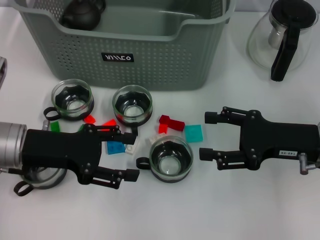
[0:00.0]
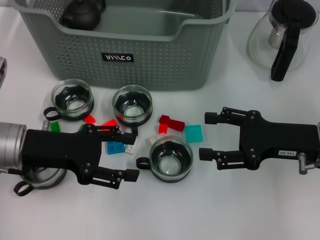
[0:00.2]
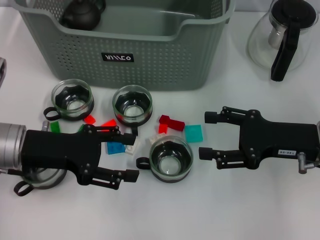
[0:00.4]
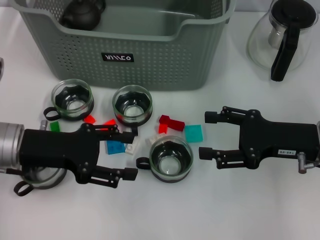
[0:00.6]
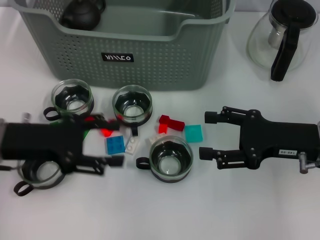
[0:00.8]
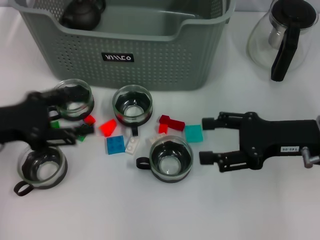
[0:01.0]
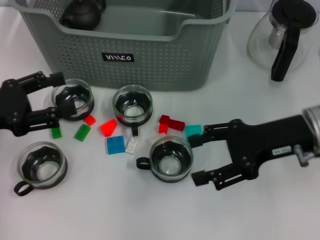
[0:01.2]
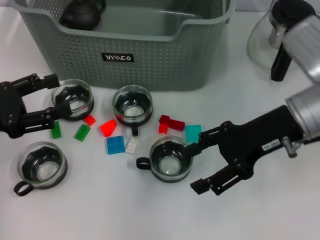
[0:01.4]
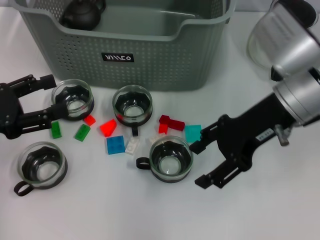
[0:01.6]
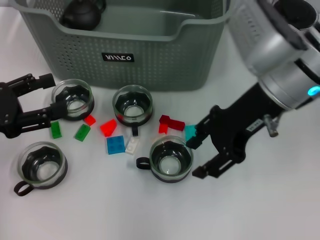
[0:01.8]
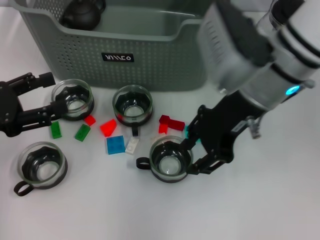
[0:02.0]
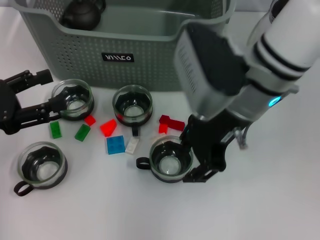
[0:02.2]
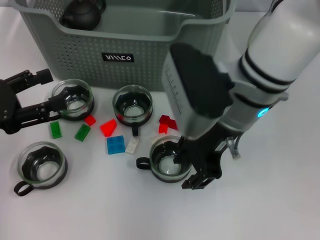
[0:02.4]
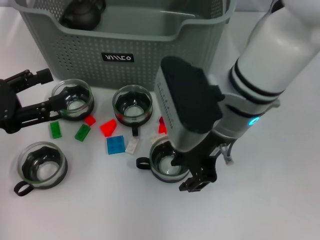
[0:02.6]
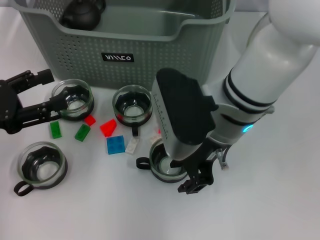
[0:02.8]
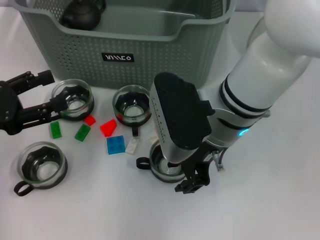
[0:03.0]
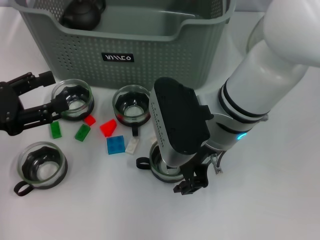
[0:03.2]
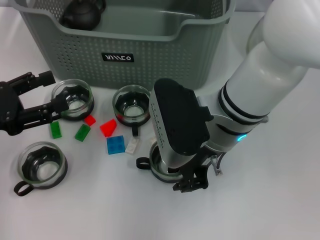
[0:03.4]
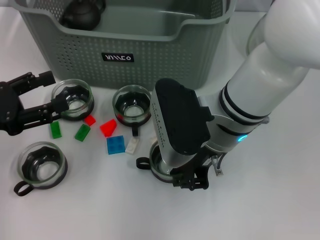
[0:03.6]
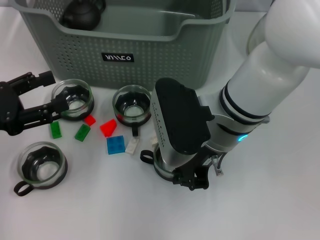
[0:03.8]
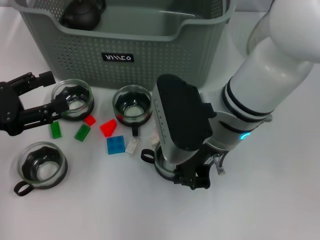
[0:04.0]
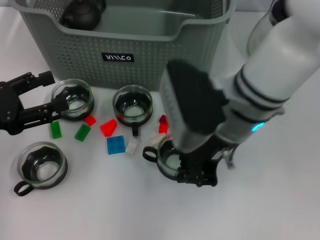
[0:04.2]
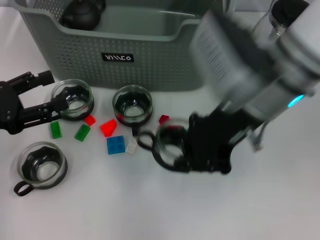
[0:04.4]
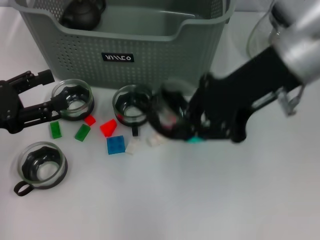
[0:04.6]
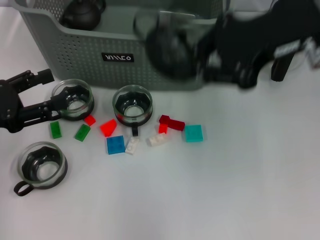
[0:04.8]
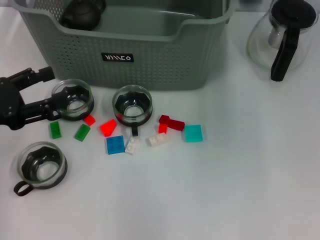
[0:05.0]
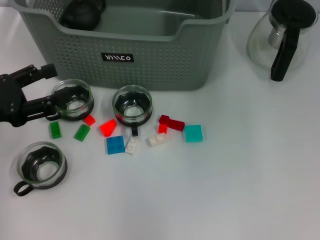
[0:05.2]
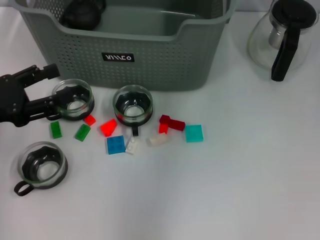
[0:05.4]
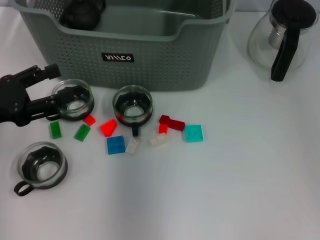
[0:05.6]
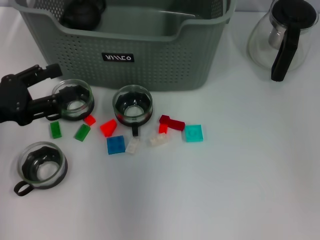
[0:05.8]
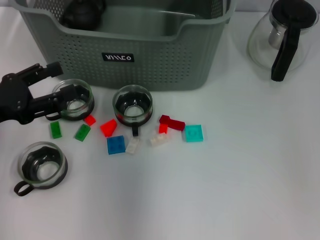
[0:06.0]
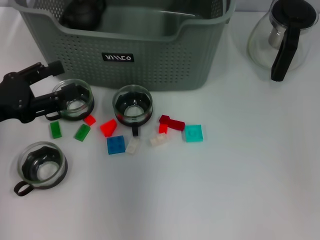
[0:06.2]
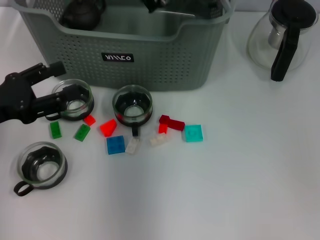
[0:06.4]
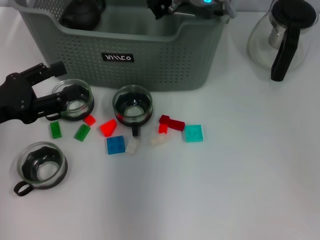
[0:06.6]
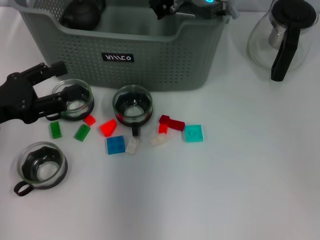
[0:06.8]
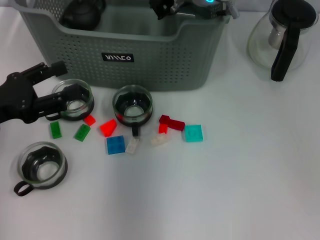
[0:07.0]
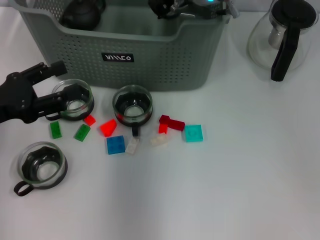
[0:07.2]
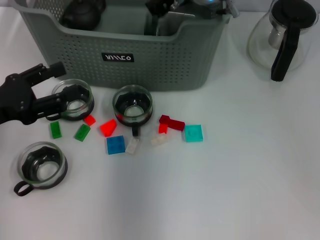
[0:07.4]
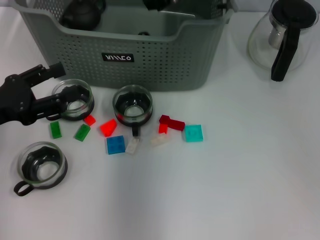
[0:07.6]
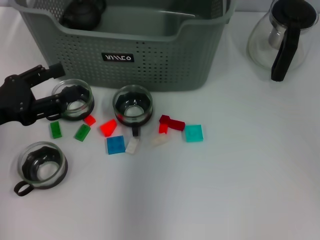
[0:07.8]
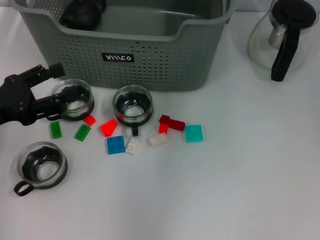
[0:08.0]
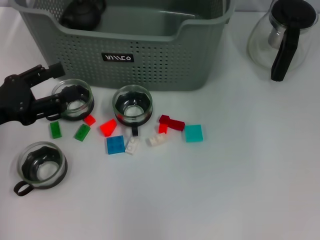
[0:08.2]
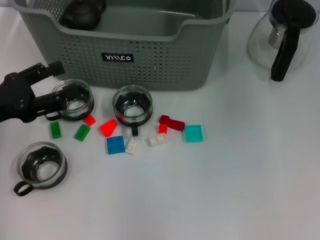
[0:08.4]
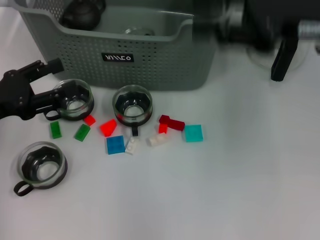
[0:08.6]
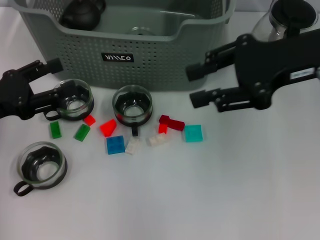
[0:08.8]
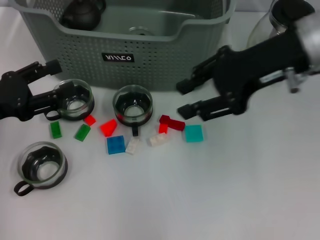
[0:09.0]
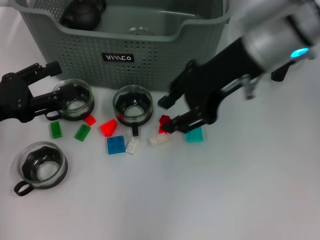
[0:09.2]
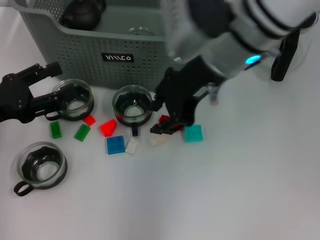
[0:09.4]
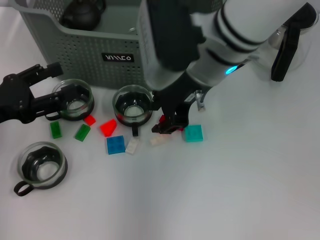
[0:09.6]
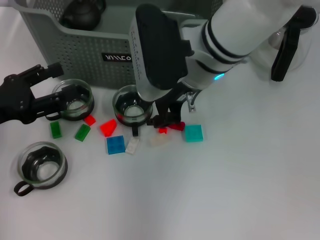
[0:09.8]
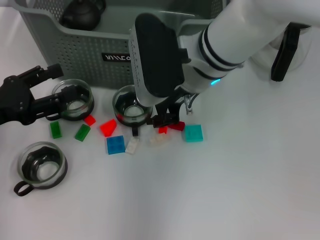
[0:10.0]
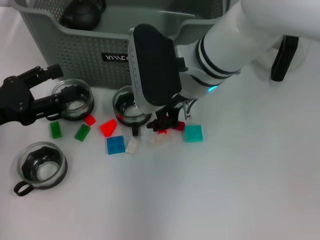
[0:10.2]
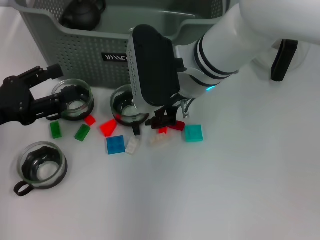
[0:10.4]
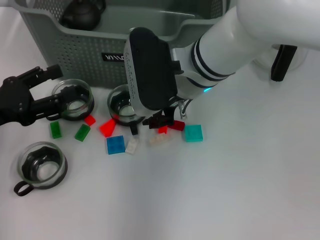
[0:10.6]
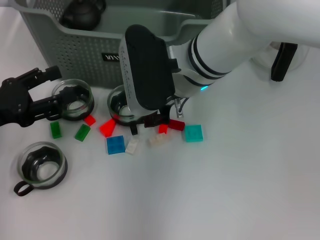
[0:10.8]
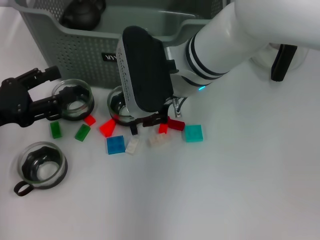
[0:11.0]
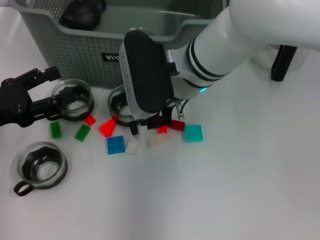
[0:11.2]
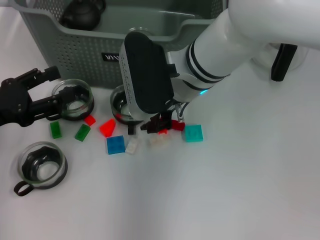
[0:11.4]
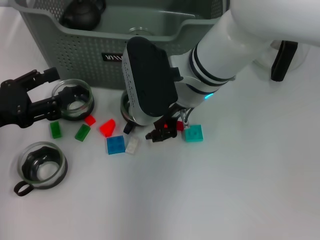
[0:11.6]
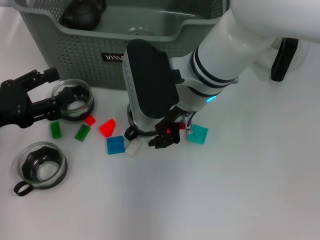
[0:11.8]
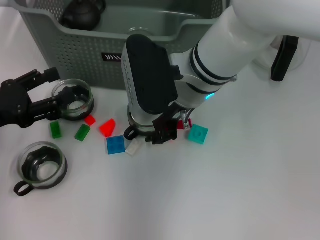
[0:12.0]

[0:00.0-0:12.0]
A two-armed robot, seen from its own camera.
Task of the whole recording: pick up the teacup on the table and place it into the storage bin, pick up the block on the table and place it into the storage bin.
Step, 0:00.0 to 0:03.8: Grasp the cup with right gripper.
Step, 0:04.0 to 0:07.6: Place the cup in the storage box with right gripper.
0:00.0 to 0:01.6: The left gripper heads to the left, covering about 10 cm, while the right gripper moves upward, to the left and forward, approximately 15 cm.
0:01.6 to 0:03.0: The right gripper travels to the left by approximately 10 cm.
0:03.0 to 0:04.4: The right gripper goes approximately 5 cm upward, and closes.
0:04.4 to 0:06.0: The right gripper moves forward and to the left, about 20 cm.
0:06.0 to 0:07.6: The right gripper shifts by approximately 5 cm.
0:07.6 to 0:09.0: The right gripper goes roughly 15 cm backward and to the right.
0:09.0 to 0:10.4: The right gripper goes some 15 cm to the left and downward.
0:10.4 to 0:12.0: The grippers stay close to where they were, moving slightly.

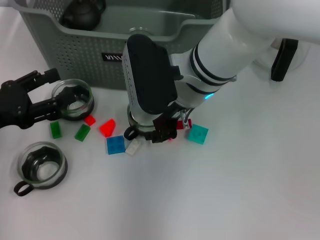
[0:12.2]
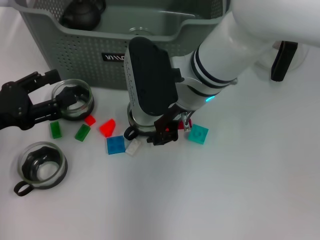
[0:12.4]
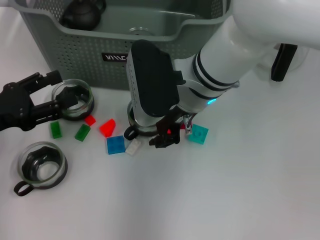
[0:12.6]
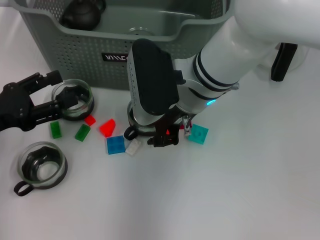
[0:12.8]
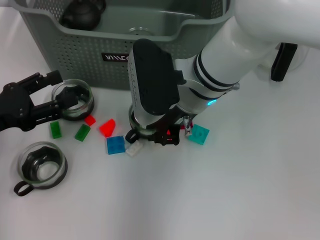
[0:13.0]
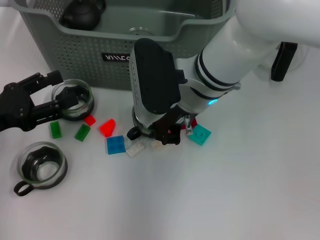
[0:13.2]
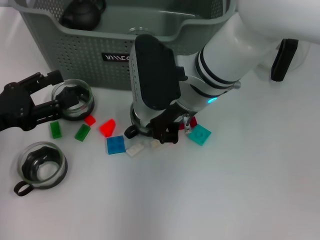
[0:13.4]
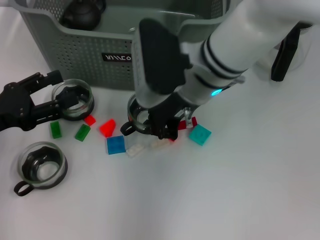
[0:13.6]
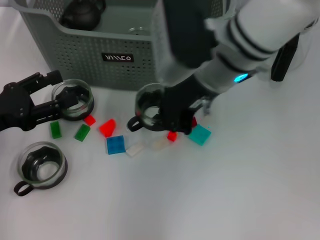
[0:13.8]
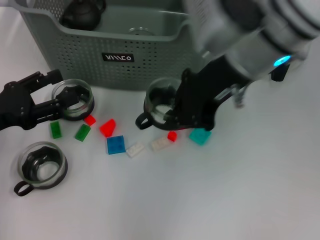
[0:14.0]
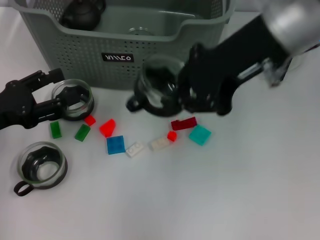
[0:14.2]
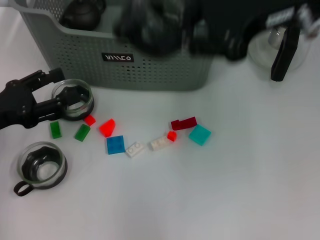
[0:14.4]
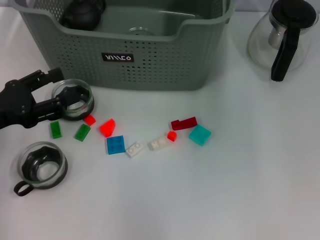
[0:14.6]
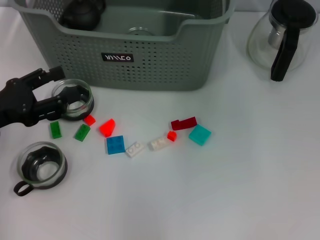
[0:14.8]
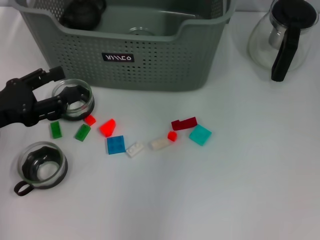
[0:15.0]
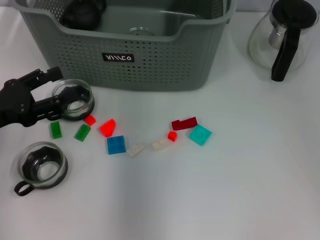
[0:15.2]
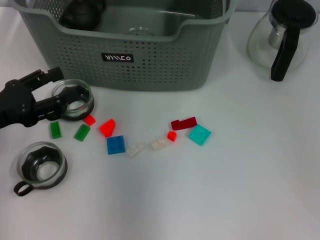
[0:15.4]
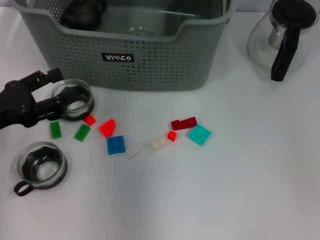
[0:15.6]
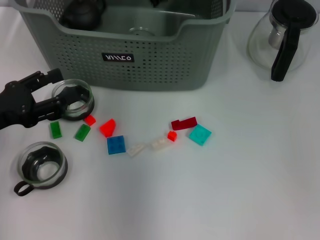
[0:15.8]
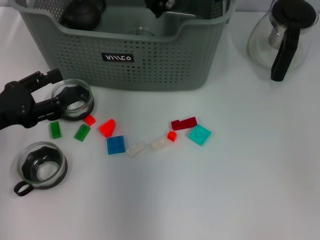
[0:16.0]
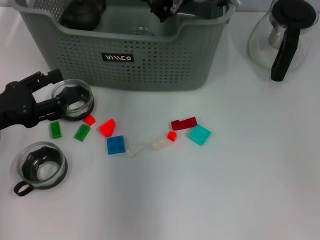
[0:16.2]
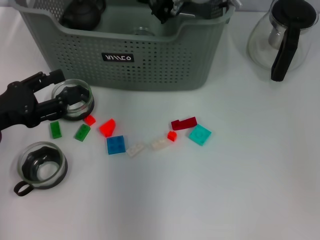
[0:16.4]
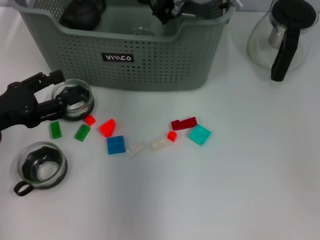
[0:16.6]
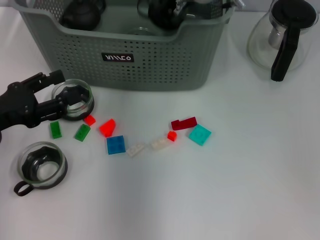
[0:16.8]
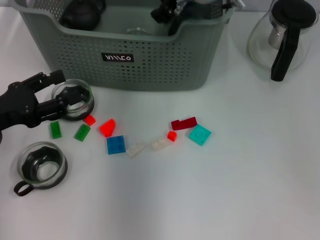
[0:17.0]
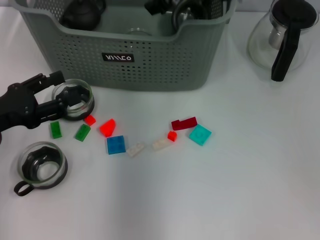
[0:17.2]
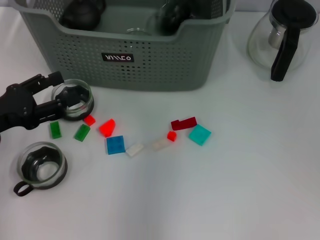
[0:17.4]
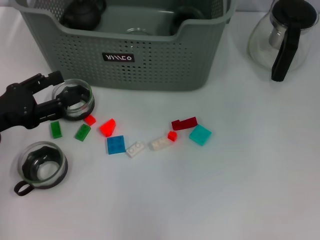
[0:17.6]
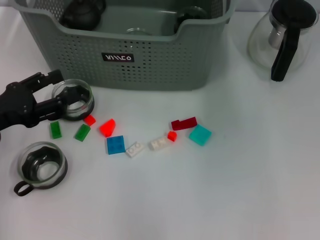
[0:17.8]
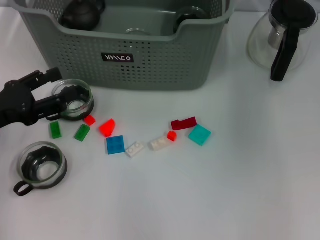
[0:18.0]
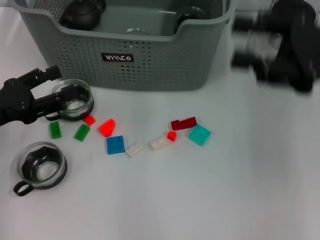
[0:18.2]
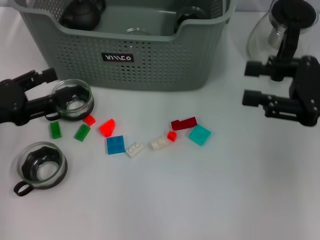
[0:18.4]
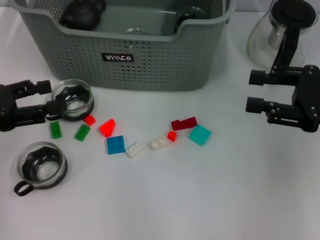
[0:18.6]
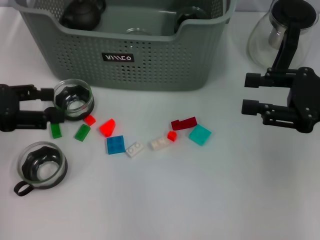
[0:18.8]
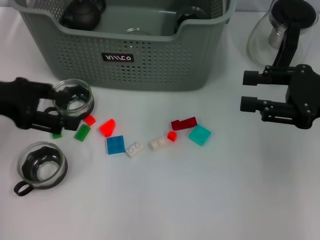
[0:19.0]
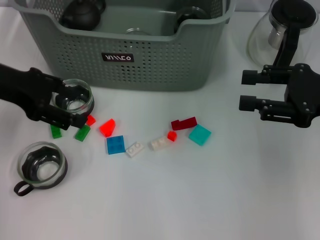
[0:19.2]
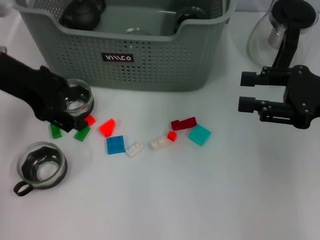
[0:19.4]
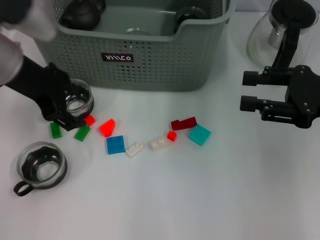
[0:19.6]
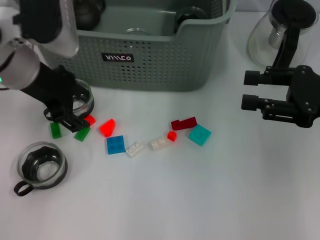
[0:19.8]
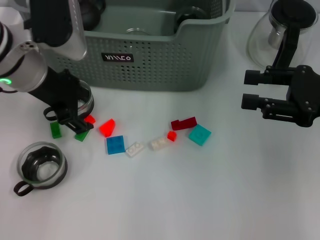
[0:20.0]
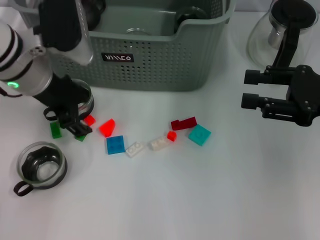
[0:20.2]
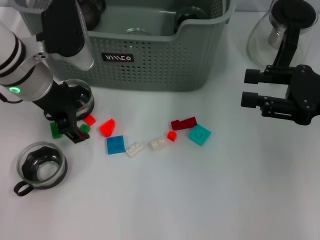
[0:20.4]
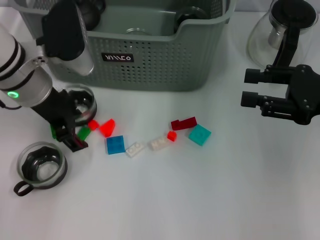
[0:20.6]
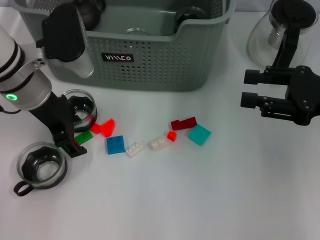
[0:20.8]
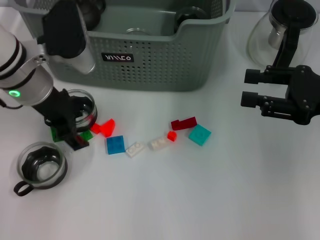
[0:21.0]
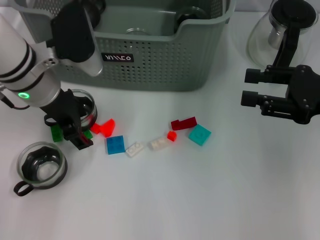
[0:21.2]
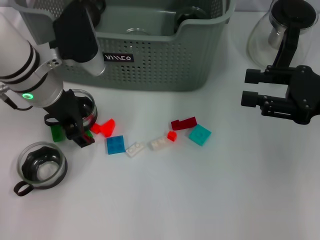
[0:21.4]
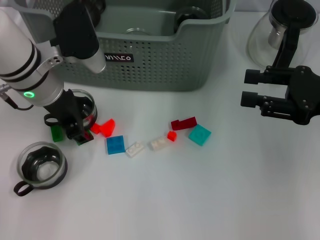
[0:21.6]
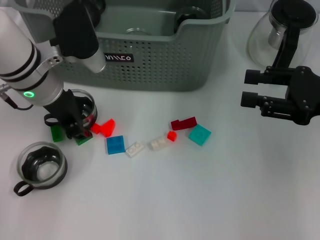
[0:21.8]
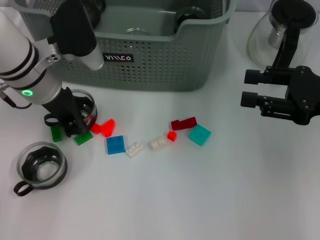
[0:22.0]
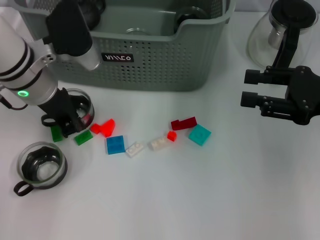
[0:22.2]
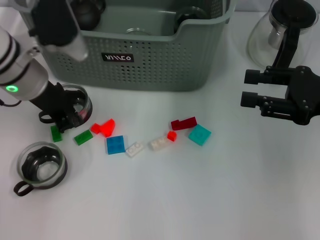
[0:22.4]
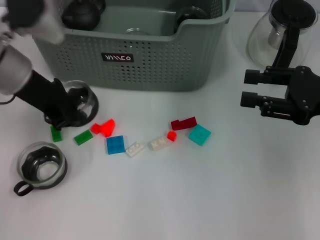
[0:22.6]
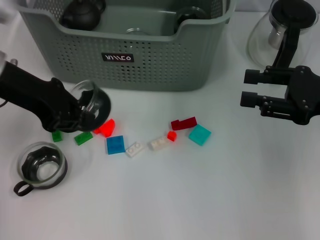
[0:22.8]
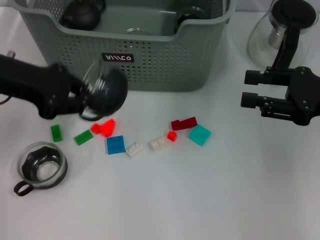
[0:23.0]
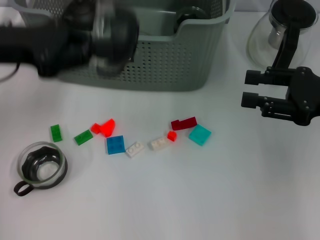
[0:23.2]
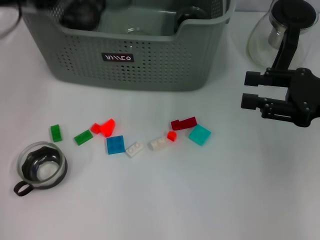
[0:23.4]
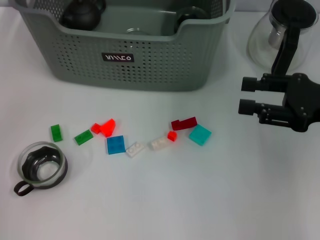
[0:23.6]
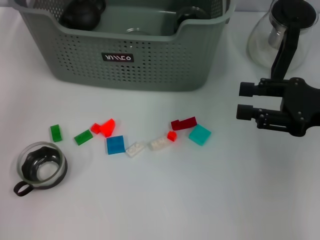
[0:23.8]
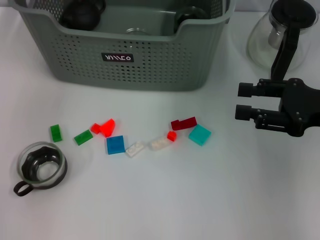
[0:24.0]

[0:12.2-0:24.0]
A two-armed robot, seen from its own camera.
Task of the whole recording: pick up the teacup on the table and place it into the storage bin, pick up the block on the table and place it into the storage bin.
Step, 0:13.4 to 0:17.2: Place the cup in the storage box with right gripper.
Step, 0:17.4 to 0:22.0: Grasp the cup with left gripper.
0:12.2 to 0:13.6: The right gripper closes up.
0:13.6 to 0:15.2: The right gripper heads upward and forward, covering approximately 15 cm.
0:15.2 to 0:16.6: The right gripper moves downward, approximately 10 cm.
0:16.6 to 0:18.2: The right gripper heads to the right and backward, covering approximately 25 cm, and opens.
0:18.2 to 0:19.6: The right gripper moves about 5 cm; the left gripper travels upward, to the right and forward by about 15 cm.
0:19.6 to 0:21.0: The left gripper ends up about 5 cm from where it was.
0:21.0 to 0:22.6: The left gripper closes.
0:22.6 to 0:24.0: The left gripper shifts about 15 cm forward and upward.
